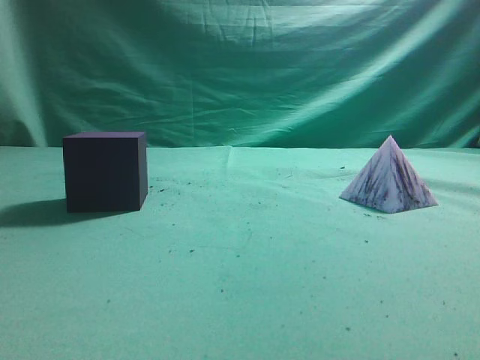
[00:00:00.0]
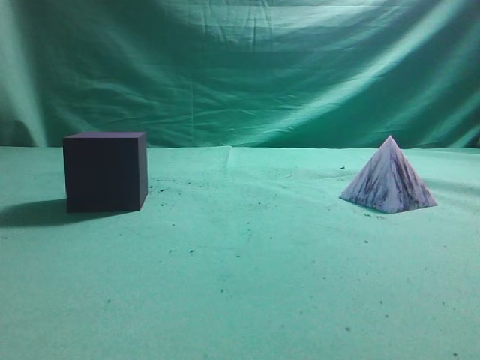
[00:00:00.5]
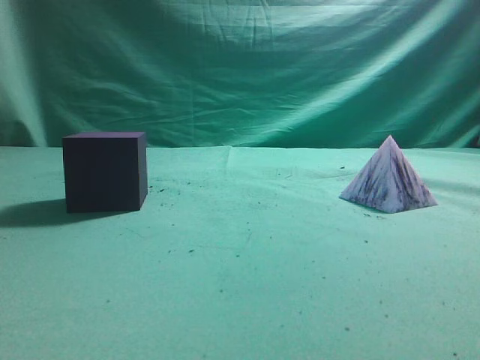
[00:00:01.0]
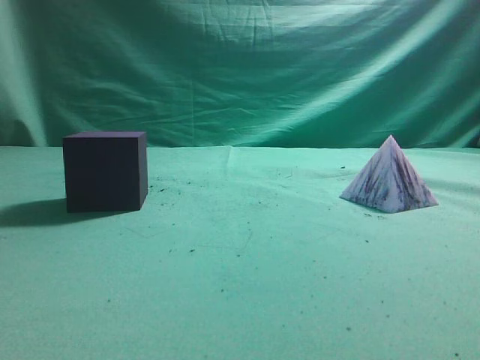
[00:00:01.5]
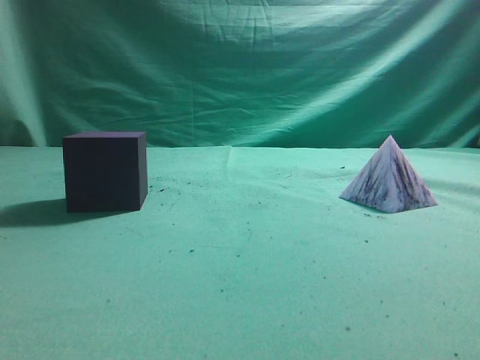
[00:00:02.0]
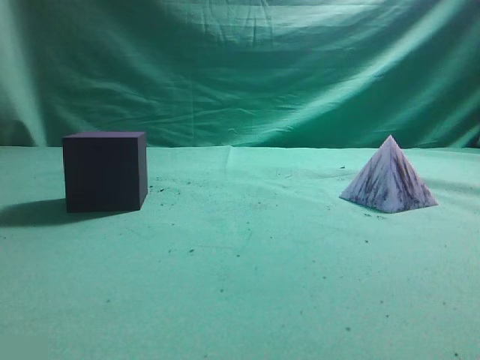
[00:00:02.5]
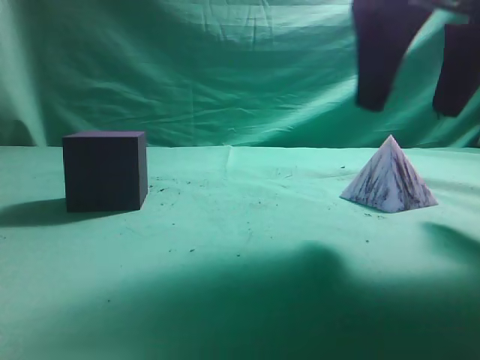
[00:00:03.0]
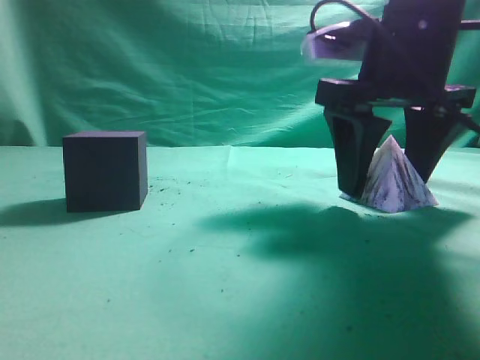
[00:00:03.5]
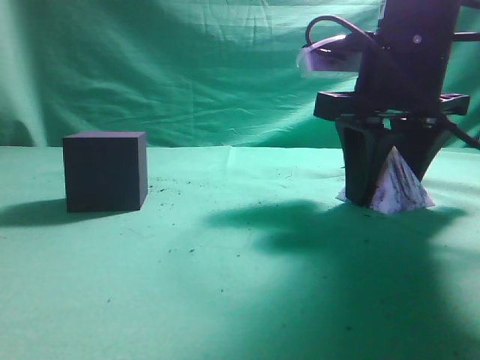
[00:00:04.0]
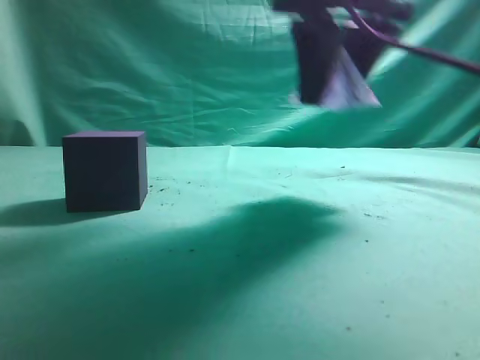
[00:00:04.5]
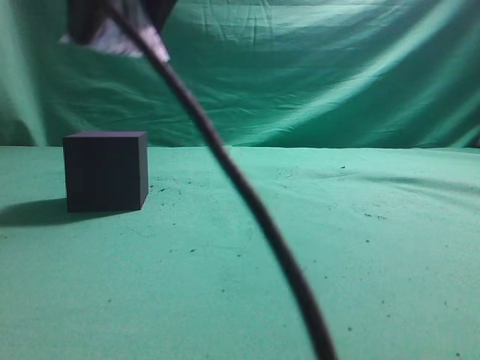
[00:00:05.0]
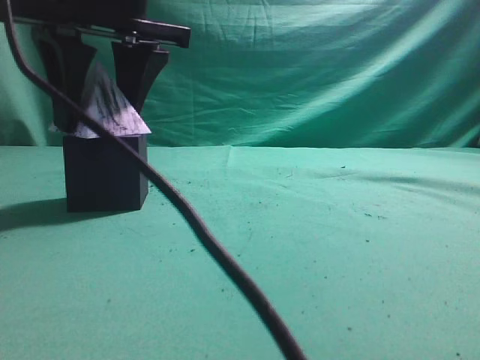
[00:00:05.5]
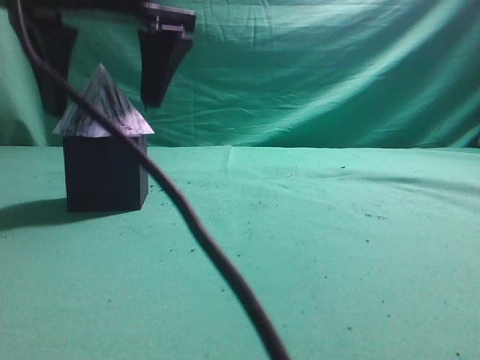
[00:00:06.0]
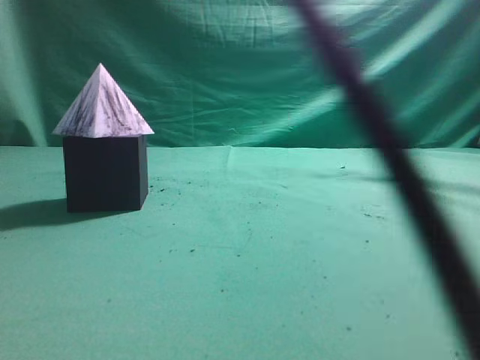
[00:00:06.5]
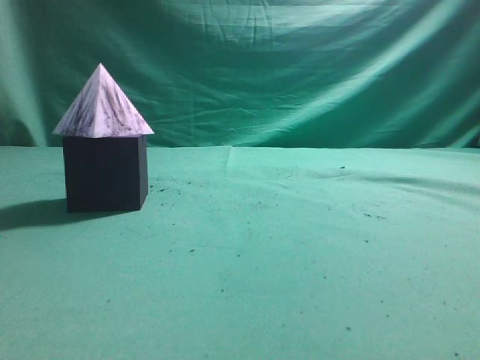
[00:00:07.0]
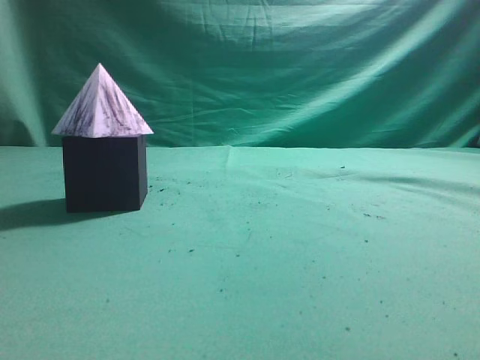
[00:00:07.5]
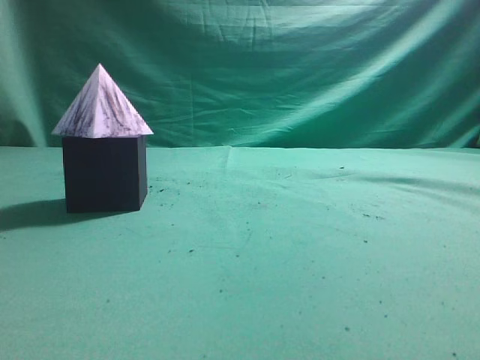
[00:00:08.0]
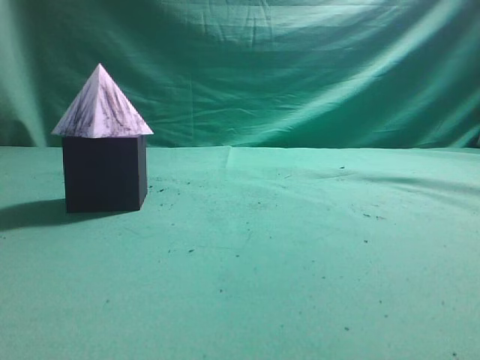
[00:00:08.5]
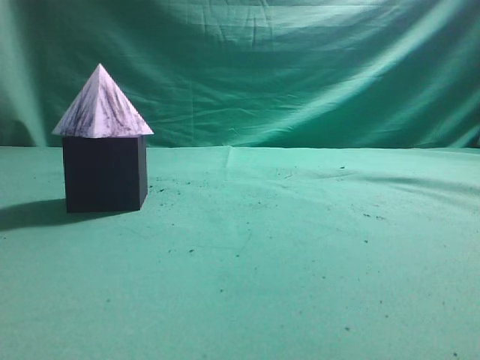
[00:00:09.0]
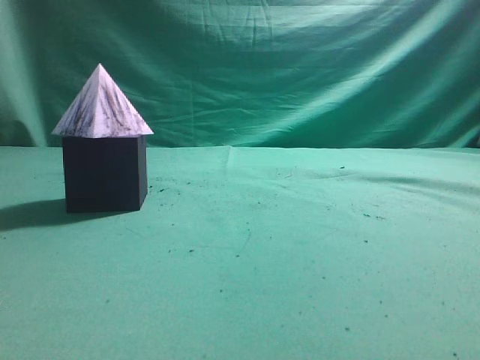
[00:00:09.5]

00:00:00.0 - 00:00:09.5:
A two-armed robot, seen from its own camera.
Task of the whole recording: pick up the square pyramid from the table and place it on the cube block.
Step, 00:00:00.0 - 00:00:04.0: Grasp the triangular block.
Step, 00:00:04.5 - 00:00:06.0: Place the block onto the cube-shaped block.
00:00:02.0 - 00:00:04.0: The right gripper heads forward, to the left and downward, covering roughly 30 cm, and opens.
00:00:04.0 - 00:00:05.5: The right gripper is displaced to the left by roughly 25 cm.
00:00:05.5 - 00:00:07.5: The right gripper moves to the right, upward and backward, roughly 40 cm, and closes.
